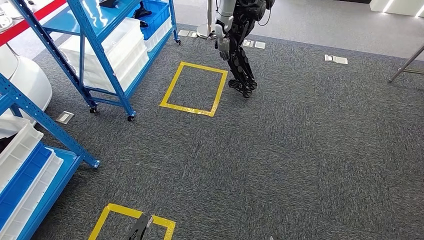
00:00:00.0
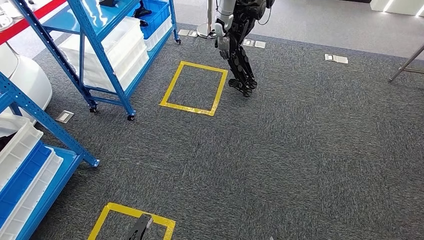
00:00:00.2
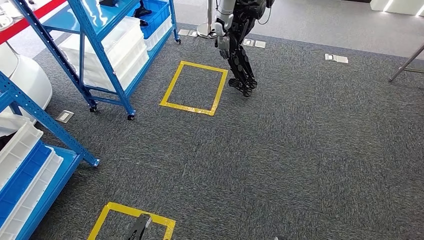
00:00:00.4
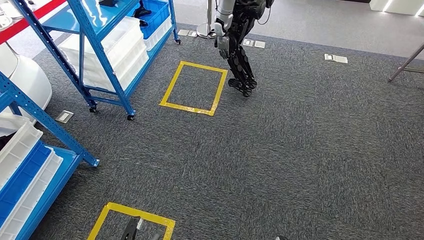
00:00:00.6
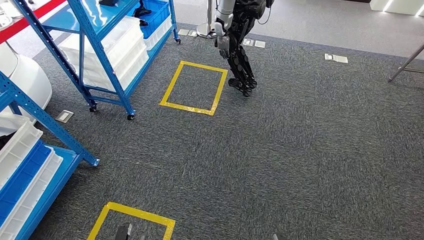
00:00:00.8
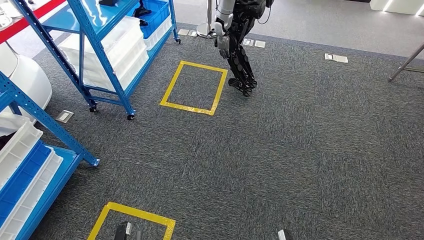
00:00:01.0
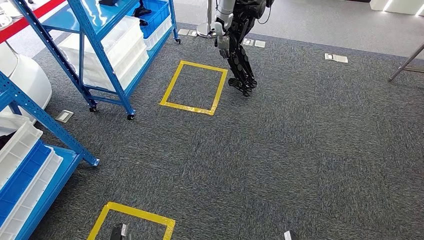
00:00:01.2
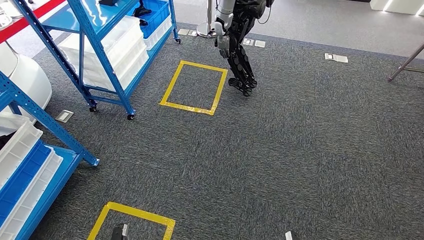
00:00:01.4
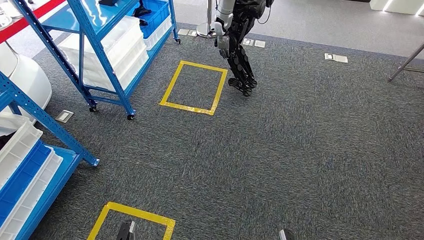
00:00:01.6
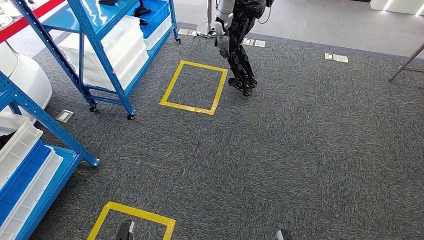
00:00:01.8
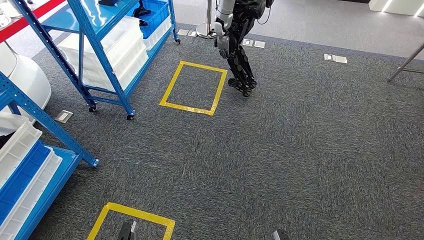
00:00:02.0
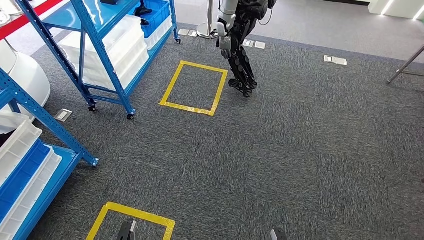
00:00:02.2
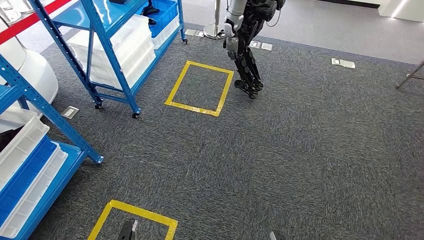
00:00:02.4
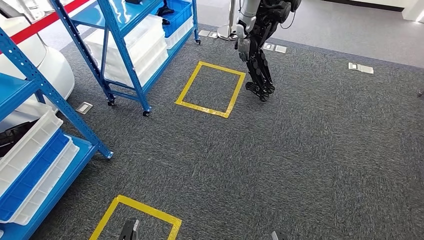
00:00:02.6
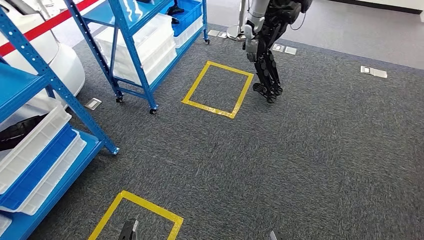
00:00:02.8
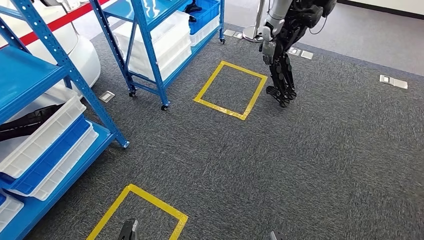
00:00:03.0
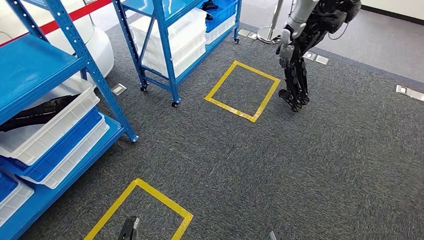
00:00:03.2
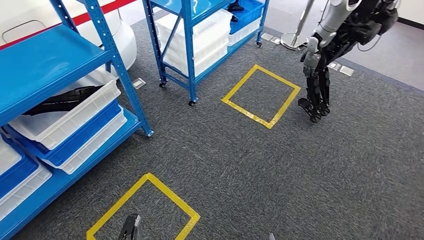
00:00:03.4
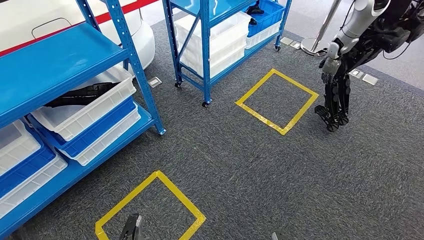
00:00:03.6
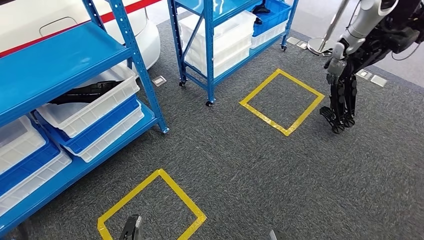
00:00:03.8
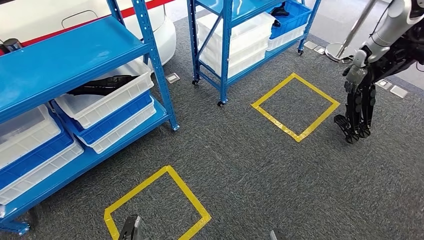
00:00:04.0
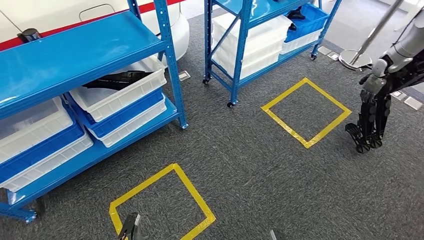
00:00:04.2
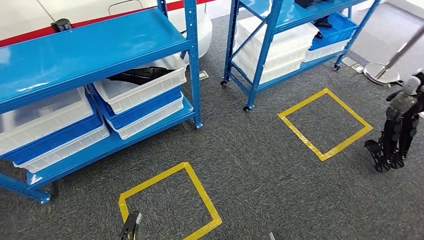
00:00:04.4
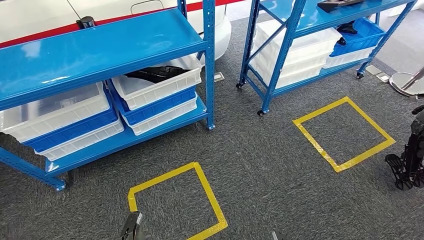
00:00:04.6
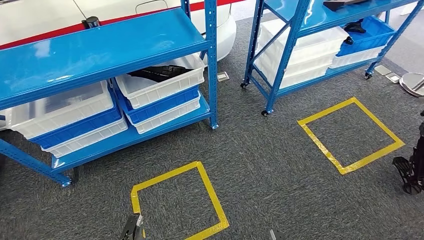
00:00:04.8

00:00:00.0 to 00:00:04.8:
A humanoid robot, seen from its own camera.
Step, 00:00:00.0 to 00:00:04.8: Move to the initial position of the shelf.
